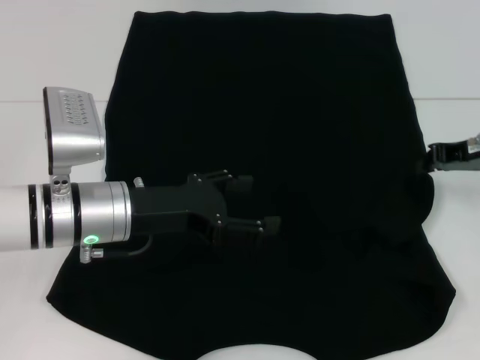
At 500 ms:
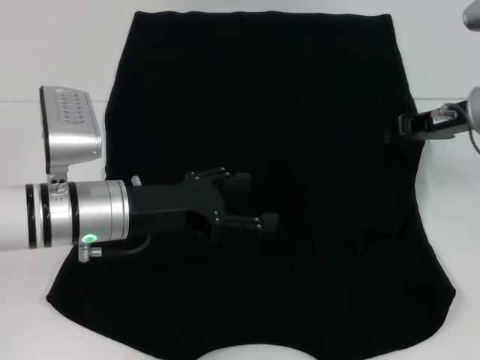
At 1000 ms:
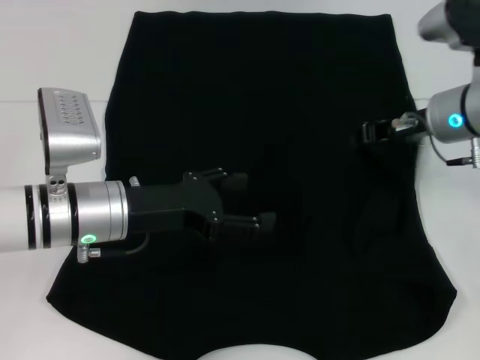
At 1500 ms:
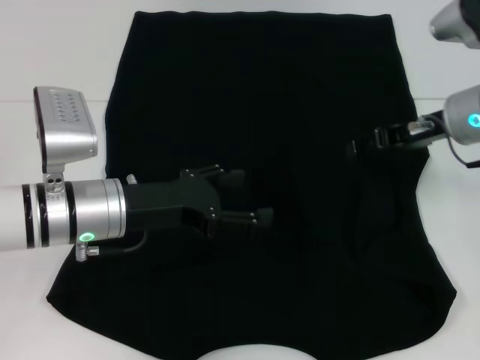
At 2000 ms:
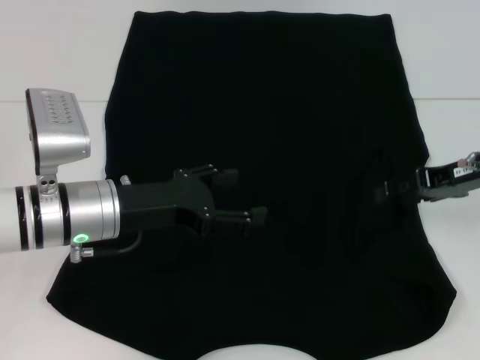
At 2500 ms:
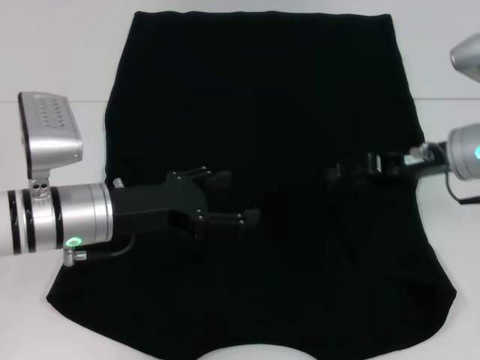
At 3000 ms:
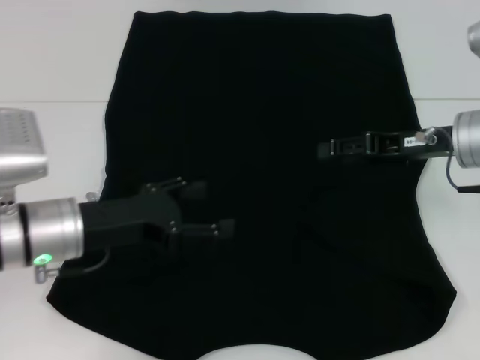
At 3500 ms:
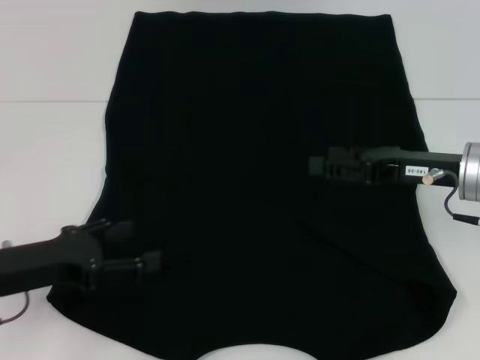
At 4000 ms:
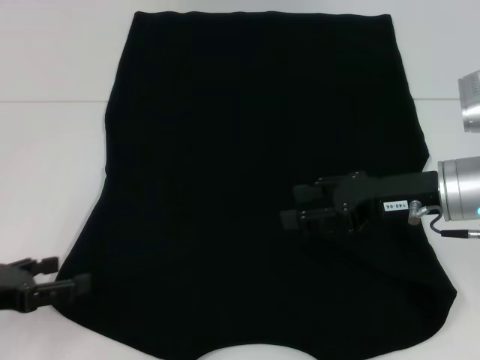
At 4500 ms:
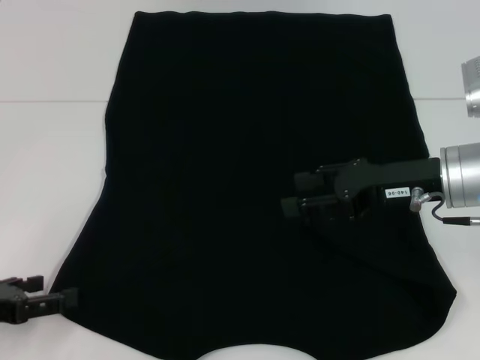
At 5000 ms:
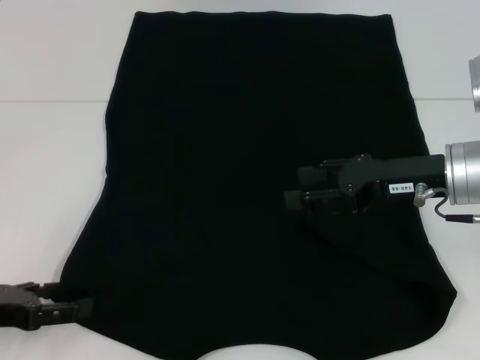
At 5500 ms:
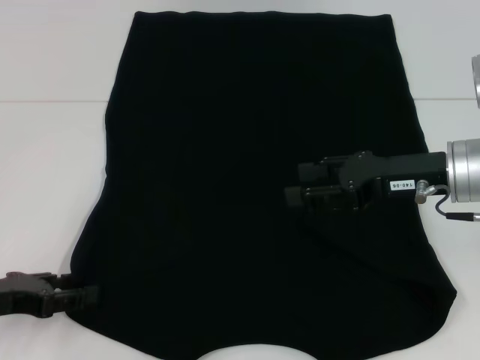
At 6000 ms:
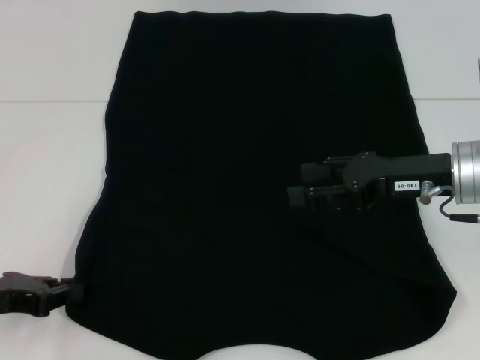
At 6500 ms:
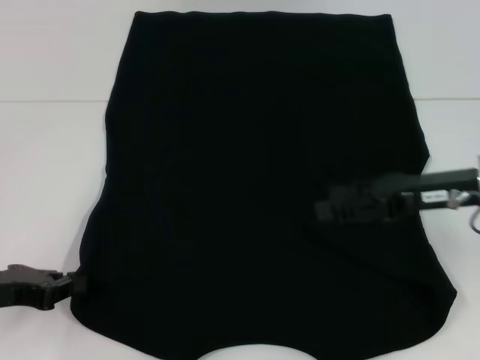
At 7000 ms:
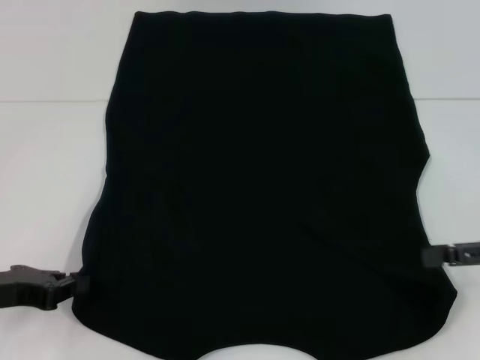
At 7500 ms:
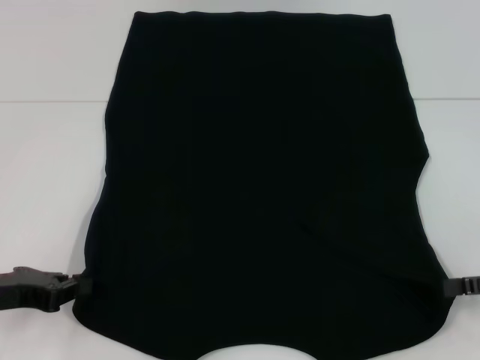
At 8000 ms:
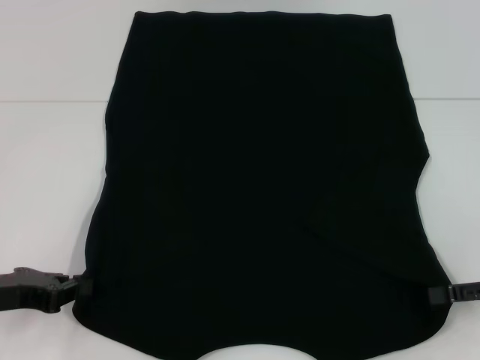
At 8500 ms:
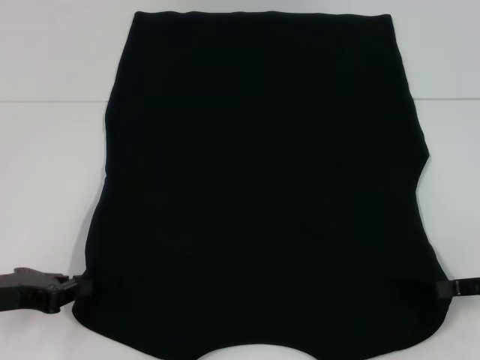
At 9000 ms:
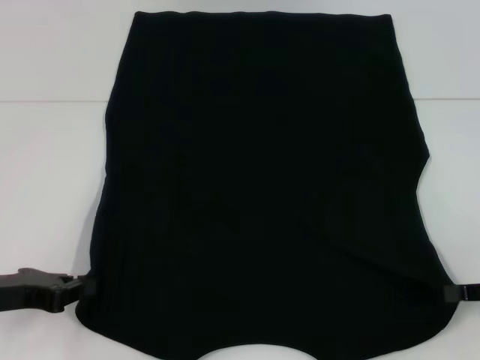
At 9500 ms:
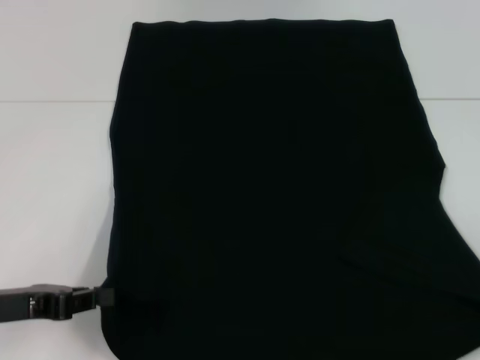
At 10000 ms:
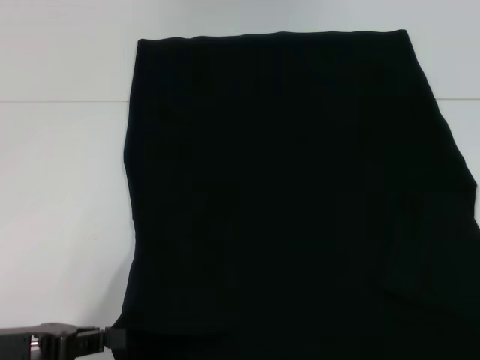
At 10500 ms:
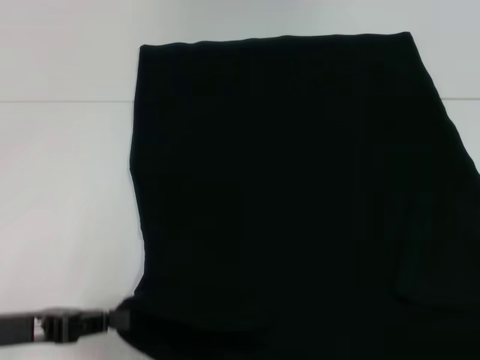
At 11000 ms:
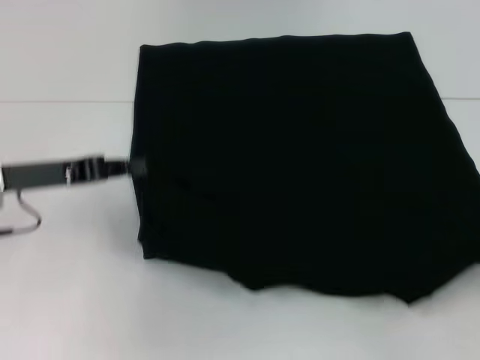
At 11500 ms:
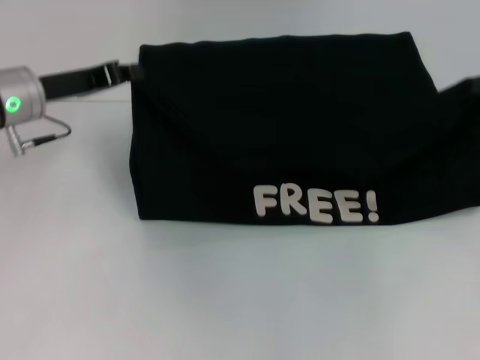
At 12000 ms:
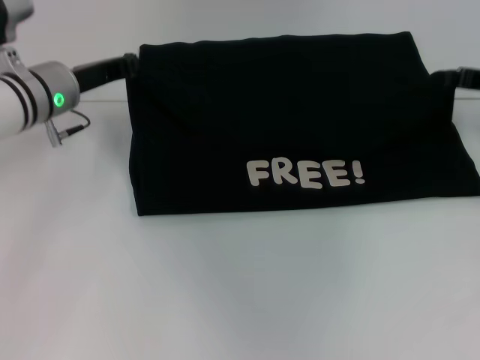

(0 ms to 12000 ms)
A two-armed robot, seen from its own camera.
Step, 0 ms - 2000 ms: Fold the bottom right sleeve with your right hand.
Step, 2500 ms - 6500 ms: Grab the bottom left corner with your left hand.
Step, 7000 ms - 9000 ms: Grab the bottom right corner with your right hand.
0 ms - 2000 ms: The right gripper reaches some 10 cm to the left, then returns, and opens its fingers.
2000 ms - 4000 ms: The right gripper goes approximately 5 cm to the left, while the left gripper heads to the left and backward, covering roughly 20 cm.
4000 ms - 6000 ms: The left gripper closes.
6000 ms - 8000 ms: The right gripper heads to the right and backward, covering roughly 15 cm.
8000 ms - 10000 ms: The right gripper is displaced backward and to the right by about 15 cm, and closes up.
10000 ms - 12000 ms: The right gripper heads forward and to the left, covering roughly 30 cm; the left gripper heads forward, covering about 25 cm.

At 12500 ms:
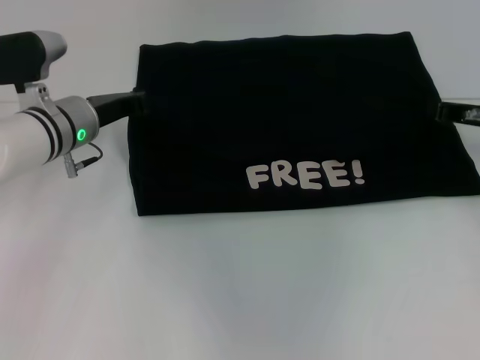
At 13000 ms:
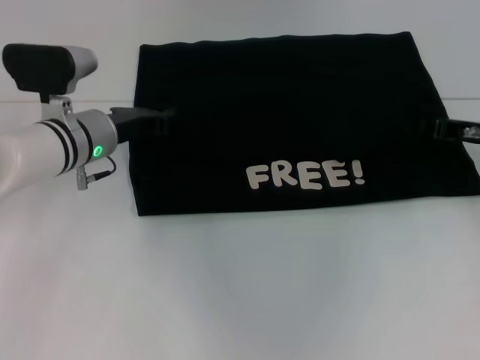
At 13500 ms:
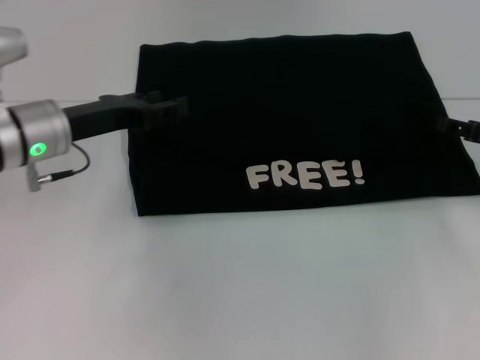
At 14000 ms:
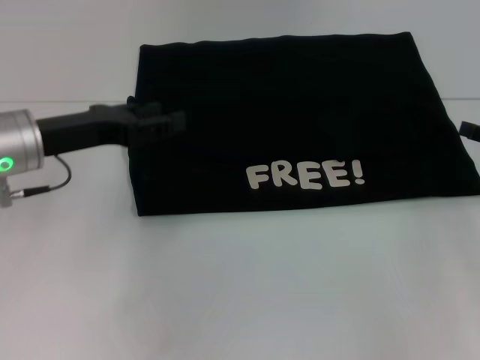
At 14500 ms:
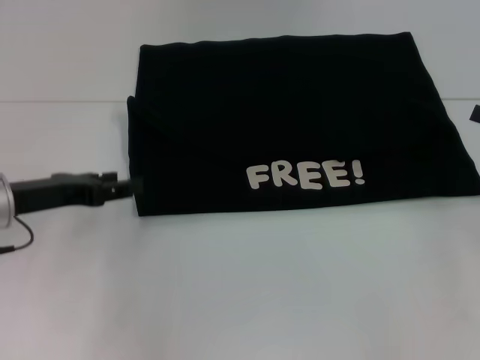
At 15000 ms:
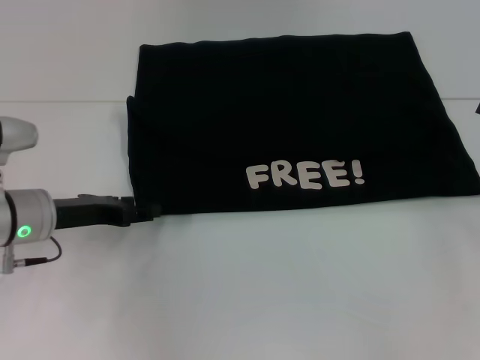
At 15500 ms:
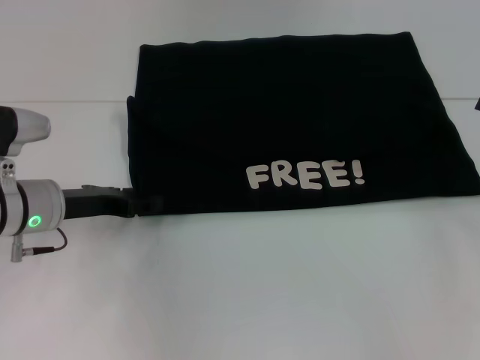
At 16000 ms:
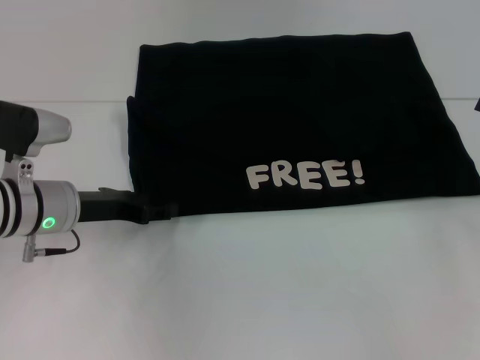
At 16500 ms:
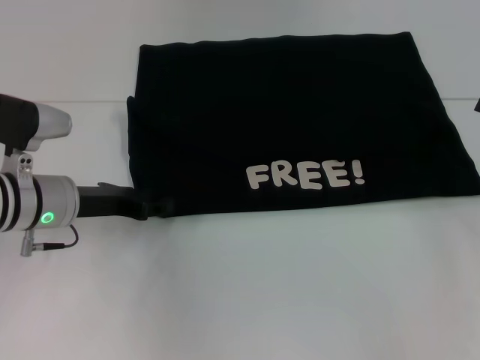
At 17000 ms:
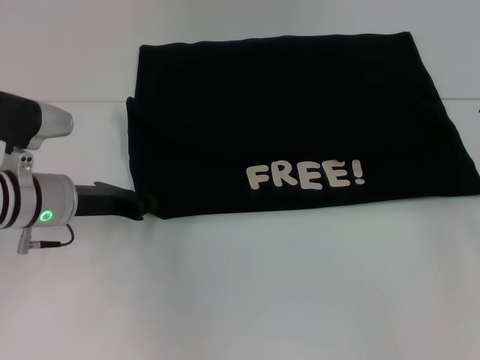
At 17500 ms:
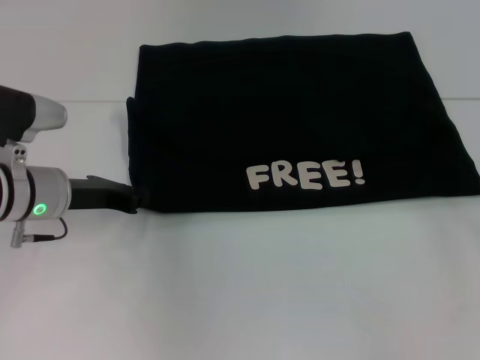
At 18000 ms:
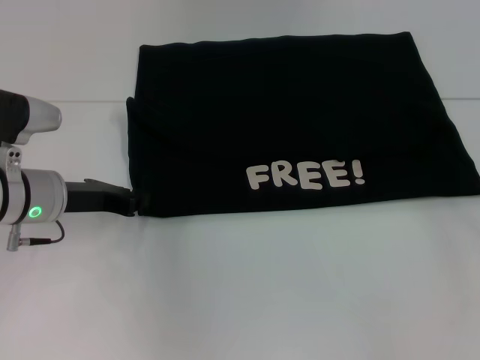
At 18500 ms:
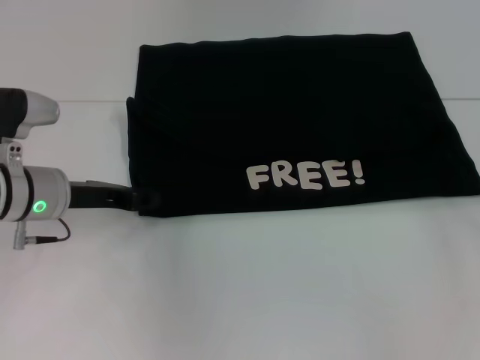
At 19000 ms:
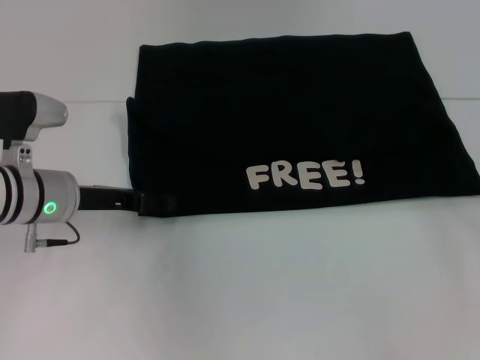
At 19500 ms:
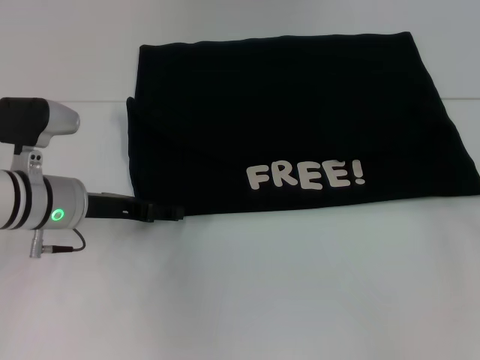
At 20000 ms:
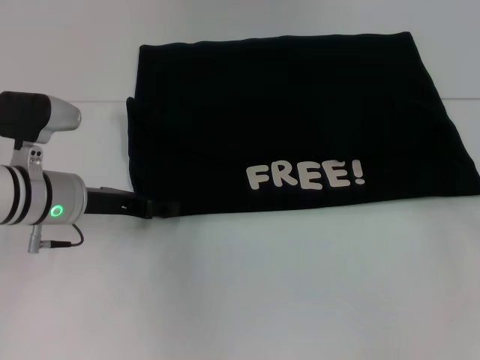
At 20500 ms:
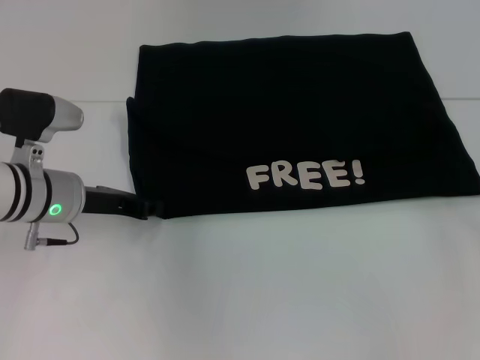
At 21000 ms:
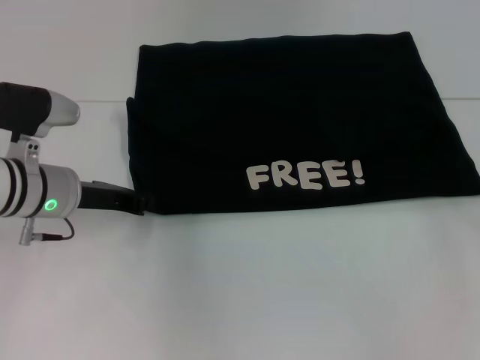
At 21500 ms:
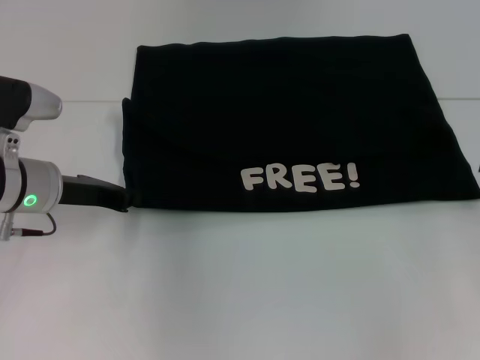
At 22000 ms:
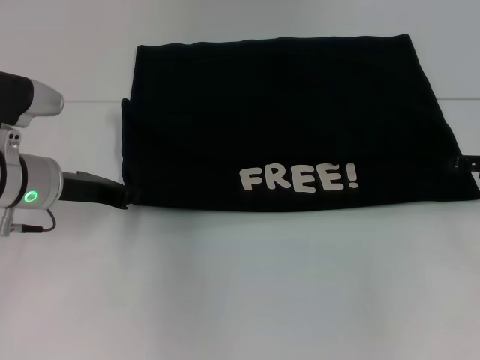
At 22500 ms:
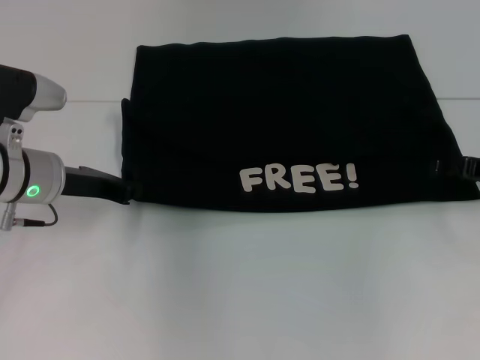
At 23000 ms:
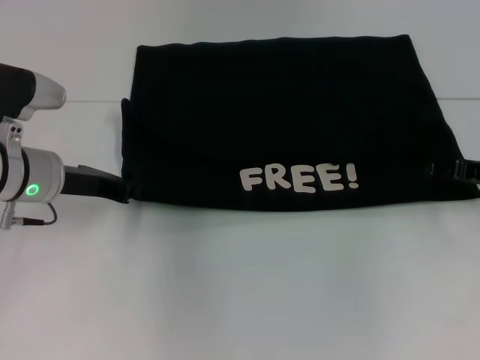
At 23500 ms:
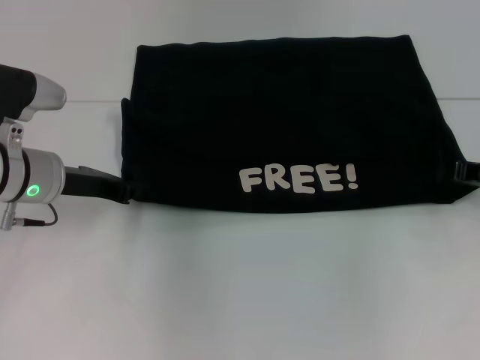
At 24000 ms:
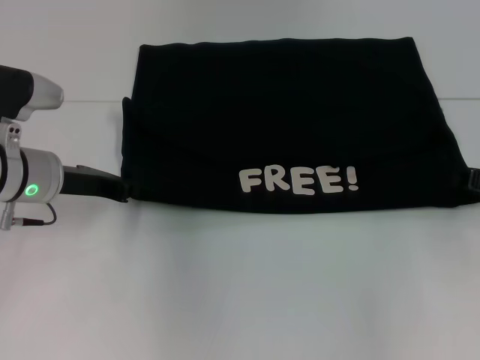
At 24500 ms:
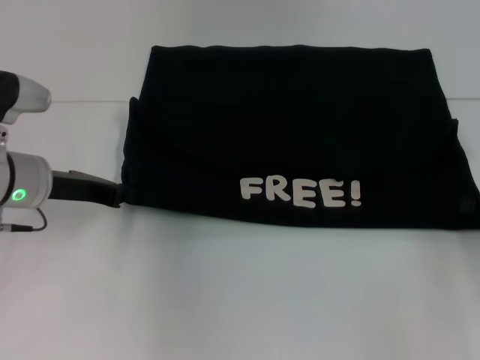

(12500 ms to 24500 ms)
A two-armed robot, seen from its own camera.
12500 ms - 14500 ms: The left gripper heads backward and to the left, covering about 15 cm, and opens up. The right gripper shifts roughly 15 cm backward and to the right, and opens up.
14500 ms - 16500 ms: The left gripper shifts by about 5 cm.
16500 ms - 18500 ms: The left gripper closes up.
18500 ms - 20500 ms: The left gripper opens, then closes again.
20500 ms - 22500 ms: The right gripper goes about 10 cm forward and to the left; the left gripper closes up.
22500 ms - 24500 ms: The right gripper goes about 5 cm backward, and closes up.

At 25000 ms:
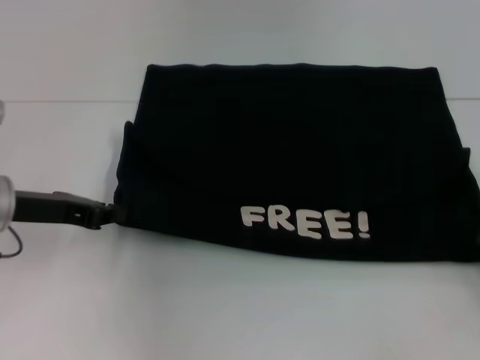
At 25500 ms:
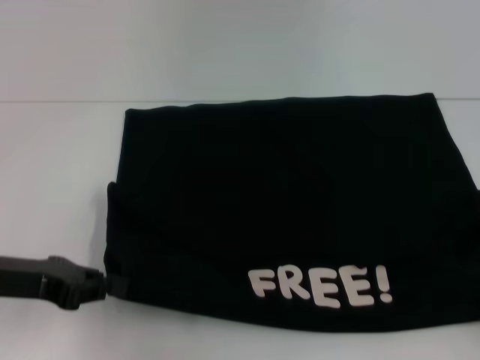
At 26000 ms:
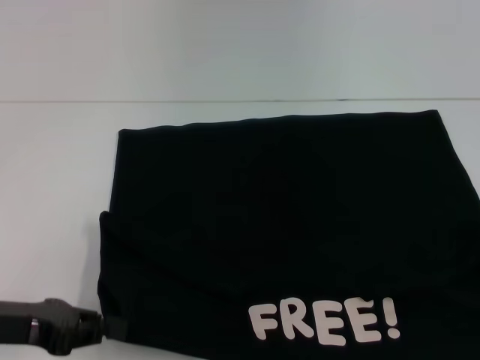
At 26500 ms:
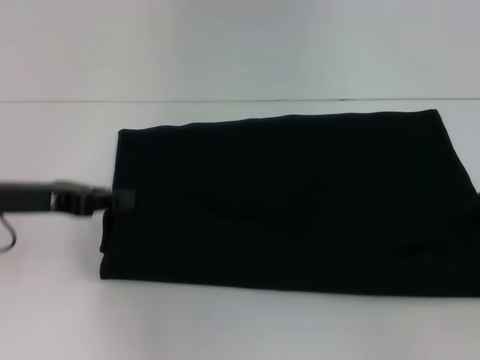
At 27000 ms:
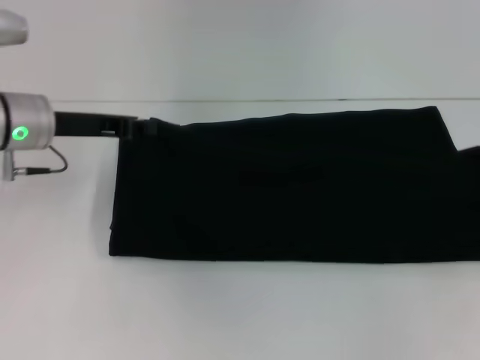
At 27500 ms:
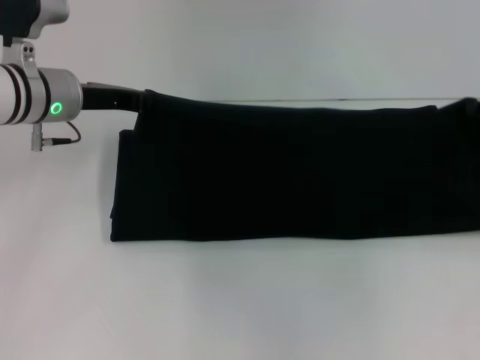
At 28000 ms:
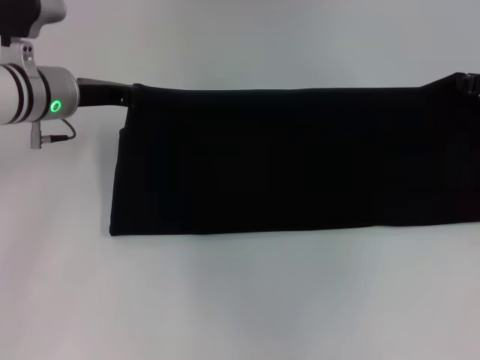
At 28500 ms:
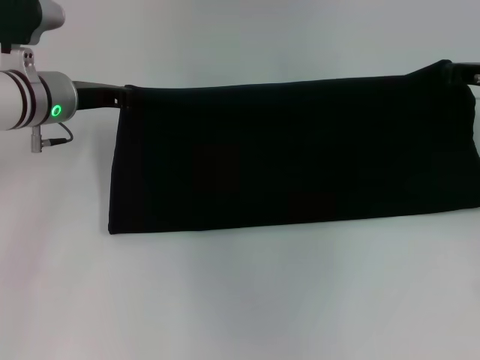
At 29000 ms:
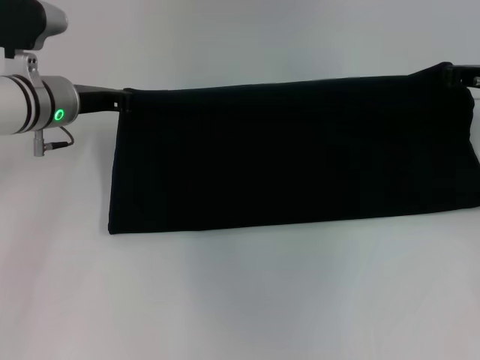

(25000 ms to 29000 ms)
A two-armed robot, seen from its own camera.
25000 ms - 27000 ms: The right gripper travels forward and upward by about 10 cm; the left gripper is displaced forward by approximately 5 cm.
27000 ms - 29000 ms: The right gripper is displaced forward and to the left by approximately 15 cm, while the left gripper shifts by about 5 cm.
